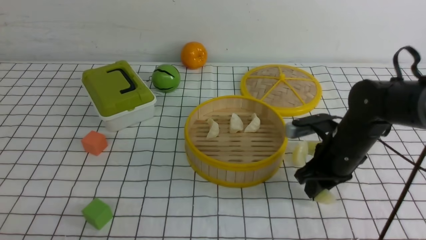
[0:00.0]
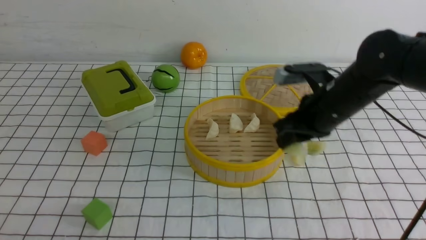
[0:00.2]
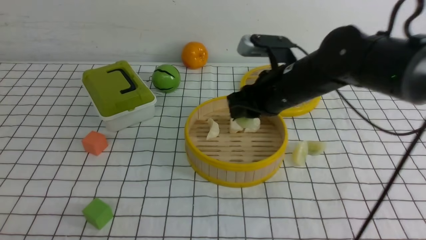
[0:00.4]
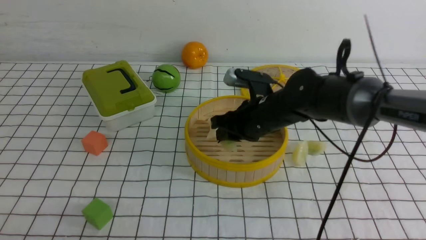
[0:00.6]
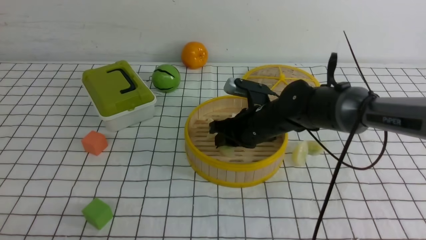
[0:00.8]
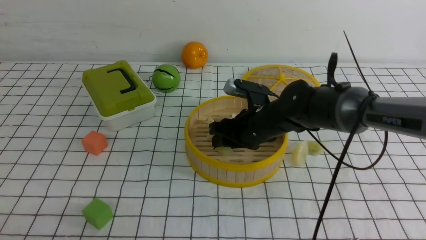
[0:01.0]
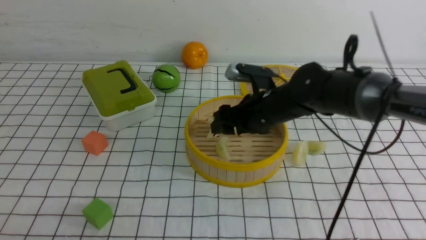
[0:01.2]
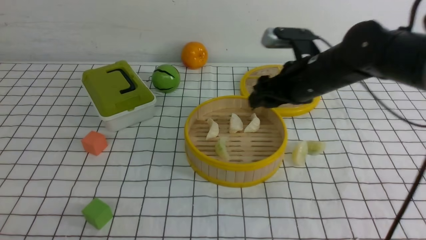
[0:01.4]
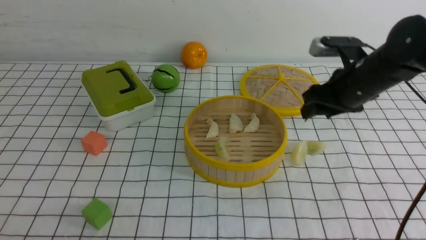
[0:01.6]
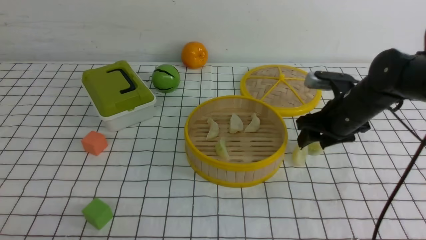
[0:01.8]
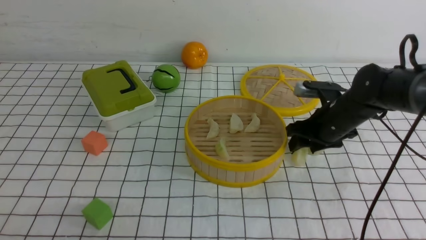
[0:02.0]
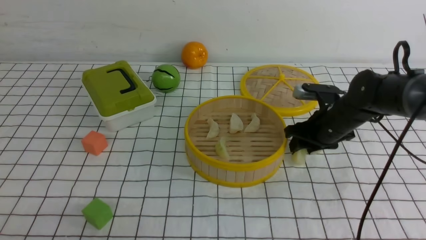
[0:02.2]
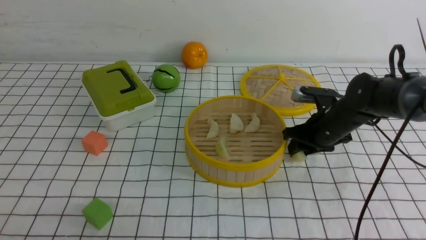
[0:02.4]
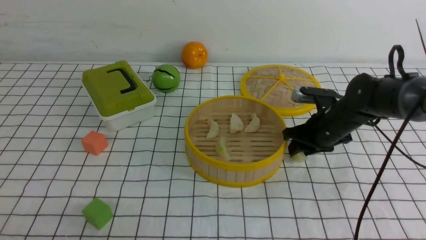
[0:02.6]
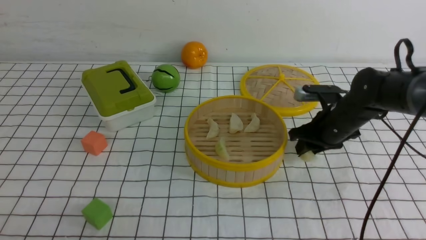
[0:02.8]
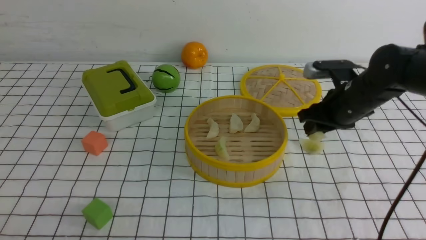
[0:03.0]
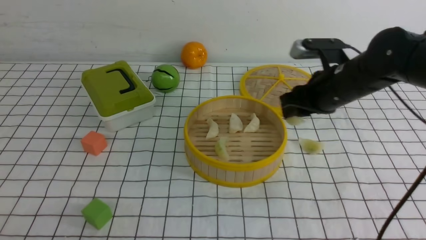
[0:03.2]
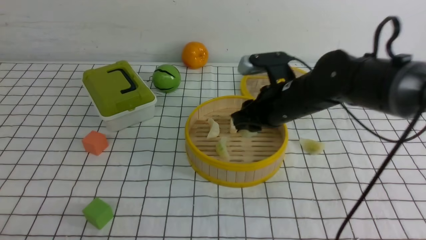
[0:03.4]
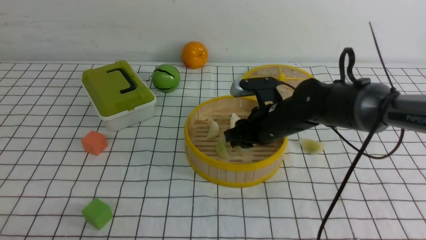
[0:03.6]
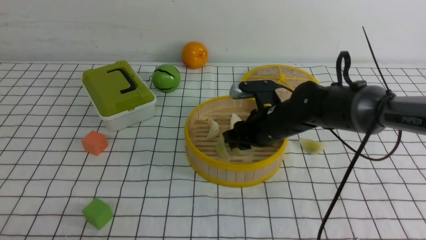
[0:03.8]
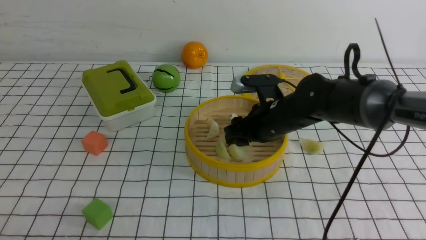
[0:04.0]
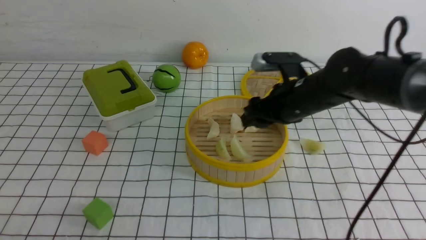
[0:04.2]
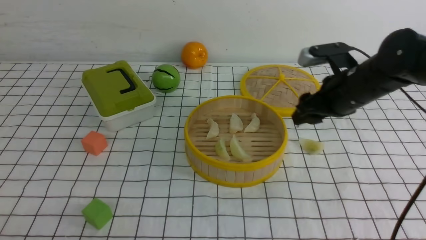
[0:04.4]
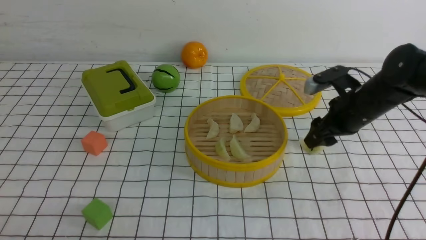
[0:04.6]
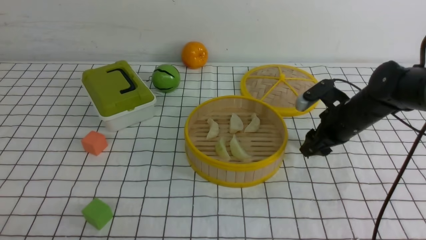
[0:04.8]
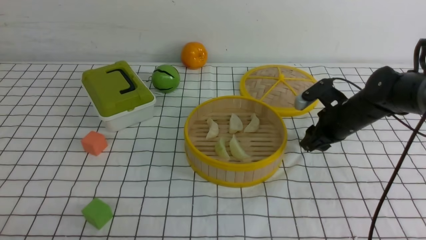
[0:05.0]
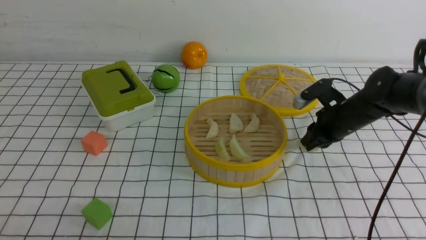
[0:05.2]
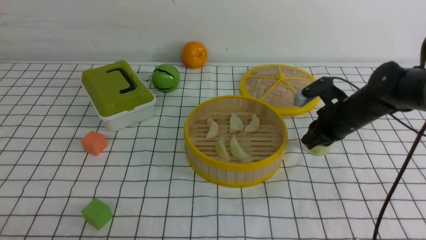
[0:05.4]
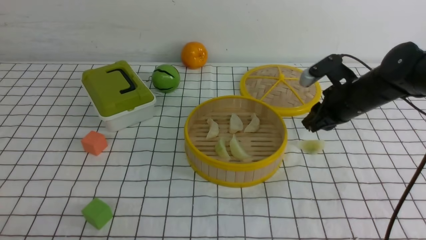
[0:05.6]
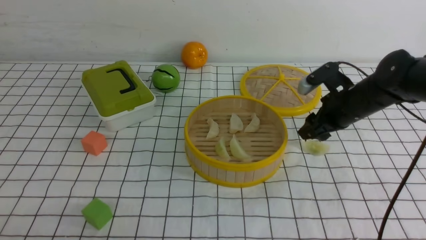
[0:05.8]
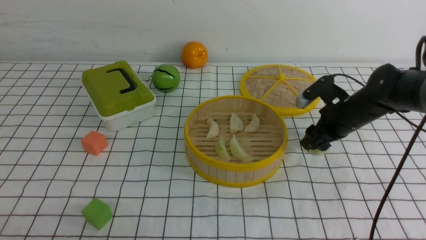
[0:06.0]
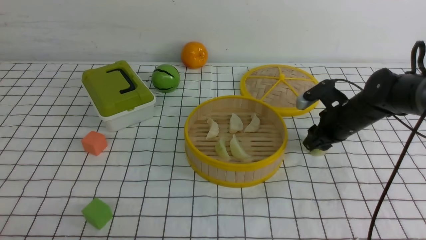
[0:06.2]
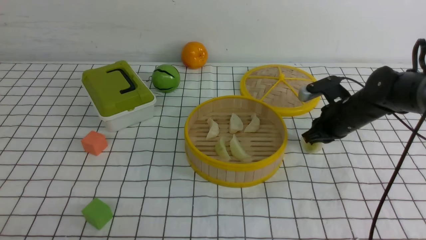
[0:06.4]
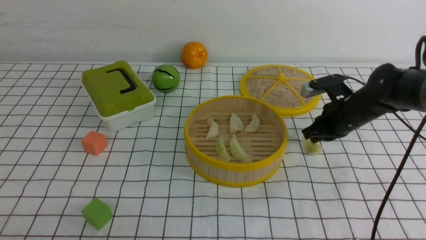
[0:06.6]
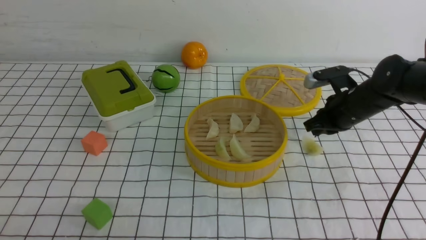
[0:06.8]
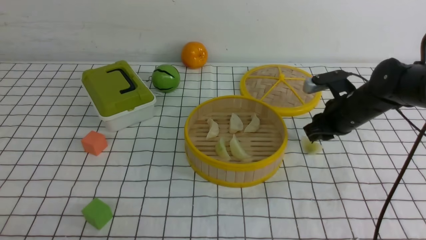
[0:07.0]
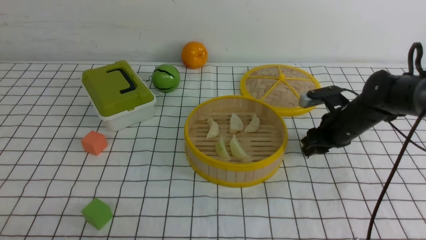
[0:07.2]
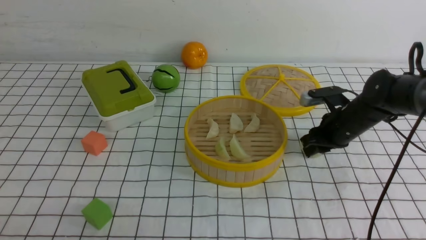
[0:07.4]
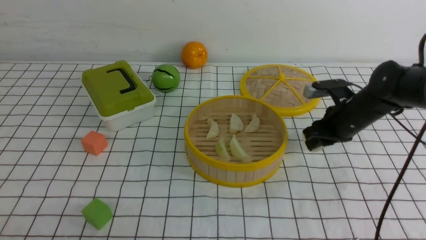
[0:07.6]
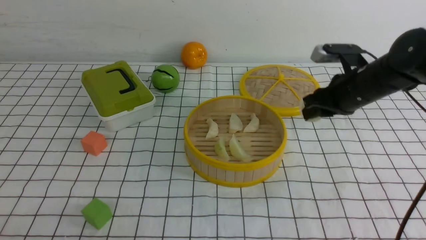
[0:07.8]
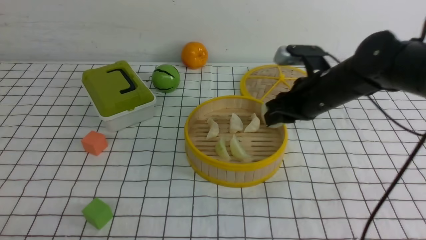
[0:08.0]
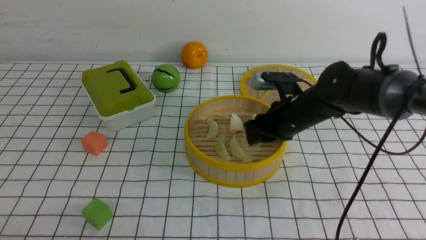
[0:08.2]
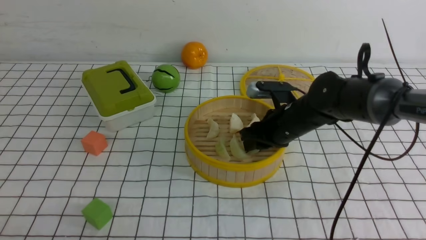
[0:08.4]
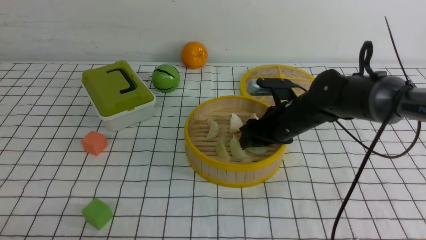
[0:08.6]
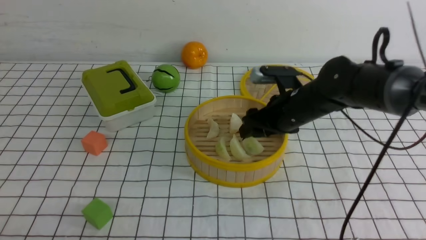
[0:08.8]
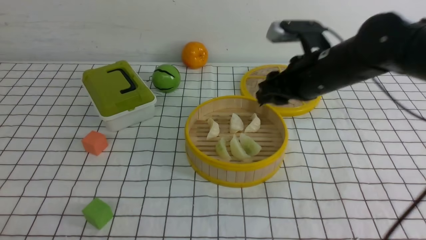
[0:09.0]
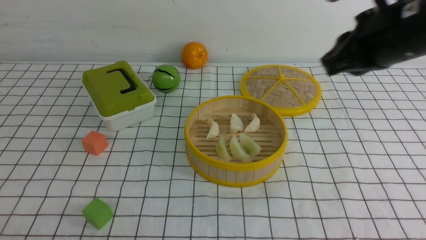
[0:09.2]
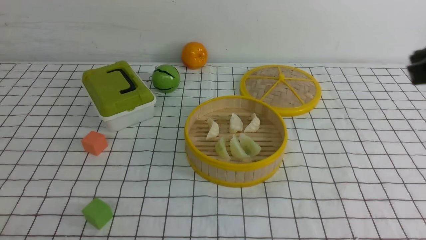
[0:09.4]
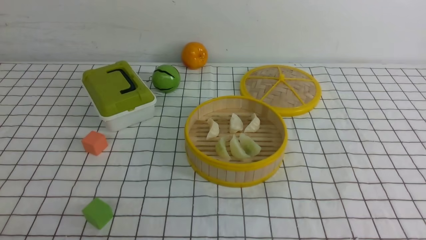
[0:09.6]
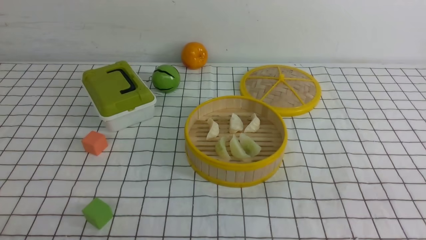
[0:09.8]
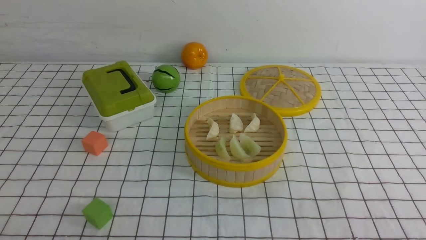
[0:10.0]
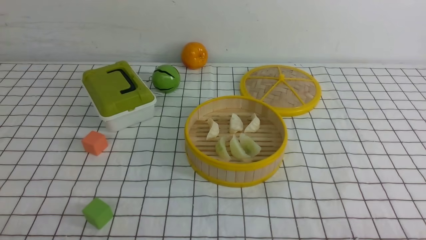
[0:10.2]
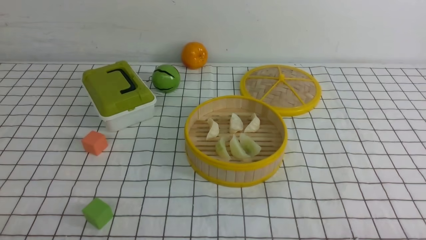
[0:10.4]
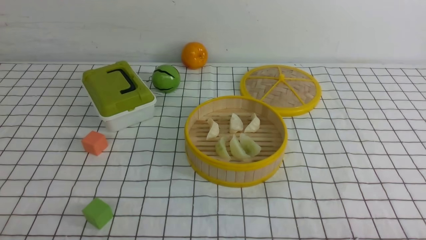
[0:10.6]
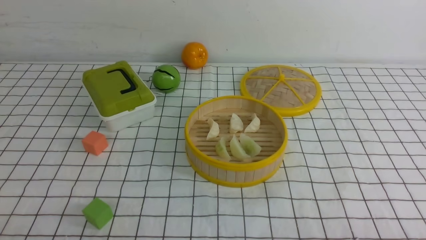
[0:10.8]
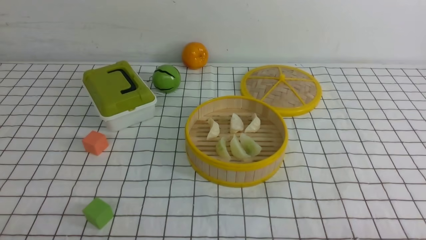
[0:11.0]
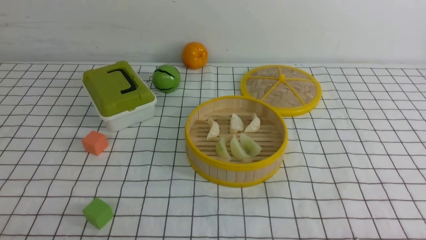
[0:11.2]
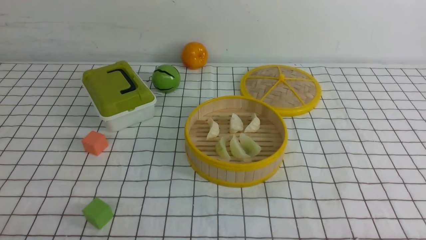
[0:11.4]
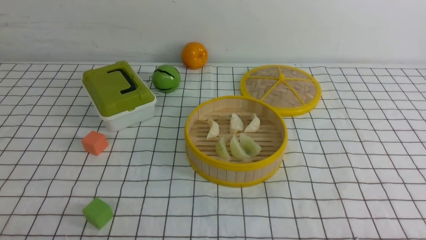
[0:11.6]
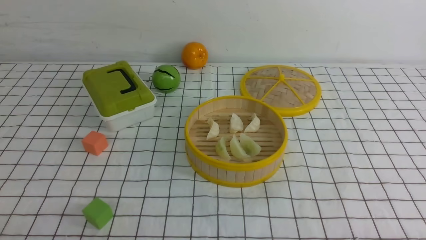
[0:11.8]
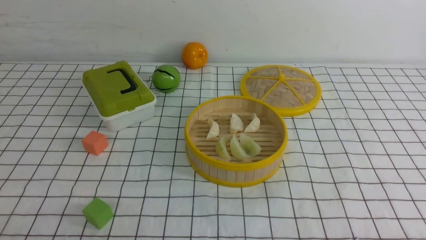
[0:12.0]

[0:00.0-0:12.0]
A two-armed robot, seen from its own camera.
Task of the whole recording: put the dumplings into the steamer on the table with the white tablecloth.
Step, 0:00.0 to 0:01.2: use the right arm to put the dumpling into the steamer.
Step, 0:01.4 to 0:02.6: use the right arm to grab a dumpling.
Step, 0:02.8 to 0:04.2: use the right arm to put the dumpling into the steamer.
Step, 0:04.4 to 0:07.4: use the right arm to grab a dumpling.
Step, 0:07.6 to 0:09.4: use the right arm to put the dumpling into the steamer.
0:00.0 to 0:01.6: The right gripper reaches approximately 10 cm to the left, then returns, and opens up.
0:01.6 to 0:03.0: The right gripper goes downward and returns, roughly 10 cm each way, and closes.
0:03.0 to 0:04.4: The right gripper travels to the left and back again, approximately 10 cm each way, and opens up.
0:04.4 to 0:06.0: The right gripper goes about 5 cm downward, and closes, then reopens.
0:06.0 to 0:07.6: The right gripper closes.
0:07.6 to 0:09.0: The right gripper heads upward, to the left and backward, covering roughly 15 cm.
0:09.0 to 0:10.4: The right gripper travels backward, downward and to the right by some 35 cm, and closes.

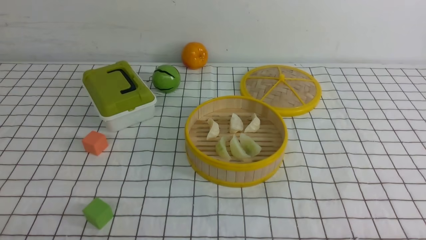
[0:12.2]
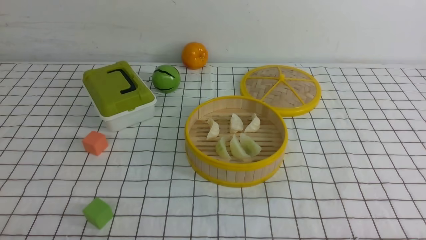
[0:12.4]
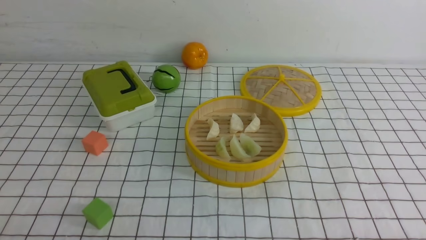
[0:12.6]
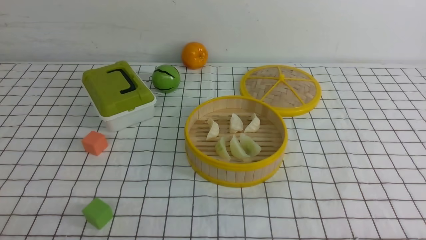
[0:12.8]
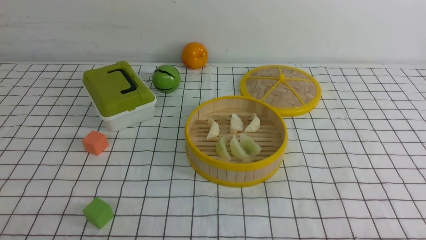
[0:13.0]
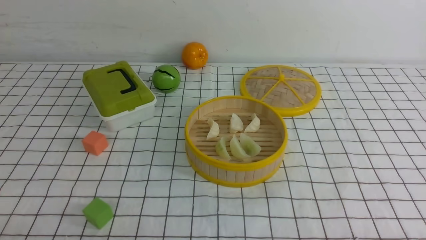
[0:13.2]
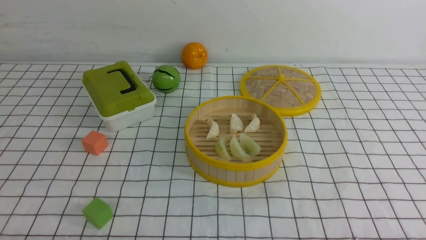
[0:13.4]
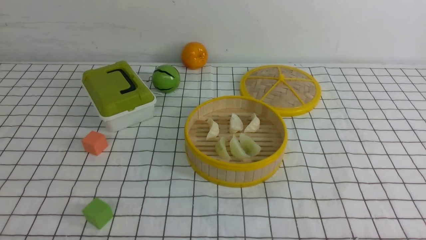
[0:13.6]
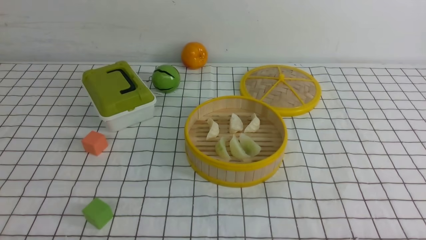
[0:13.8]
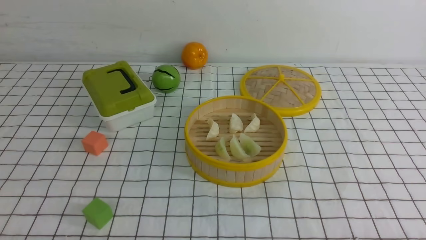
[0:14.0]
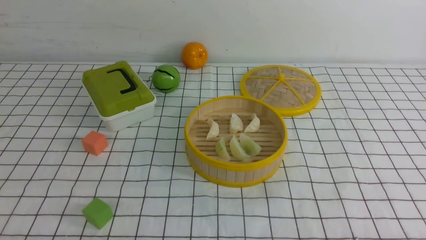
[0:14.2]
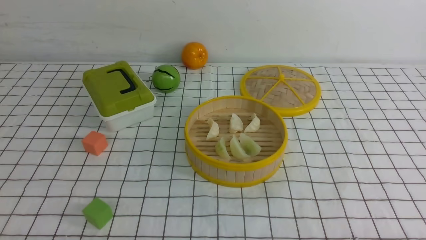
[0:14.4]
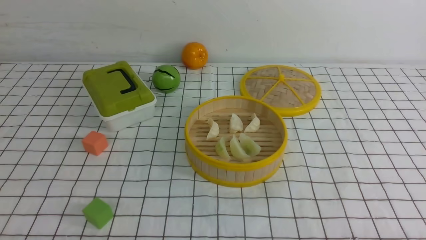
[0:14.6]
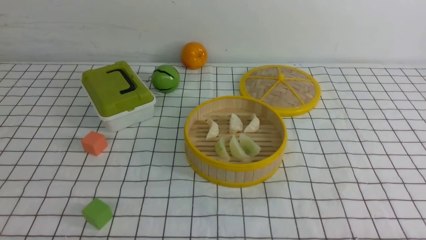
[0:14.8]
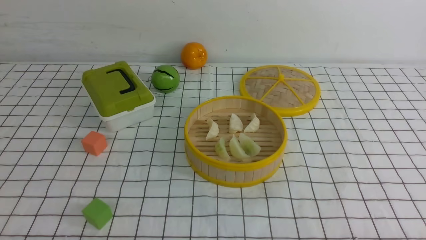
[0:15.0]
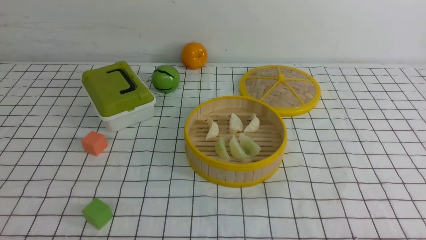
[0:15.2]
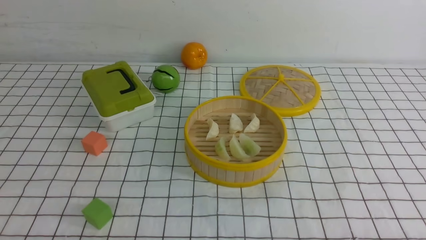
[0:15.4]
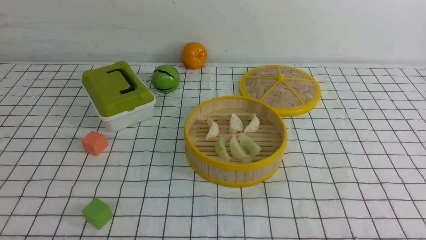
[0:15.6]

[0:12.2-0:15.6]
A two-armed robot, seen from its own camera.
Task of the whole recording: put the dumplings into the steamer on the table with the white tablecloth.
0:13.8 to 0:15.6: Neither gripper changes place.
